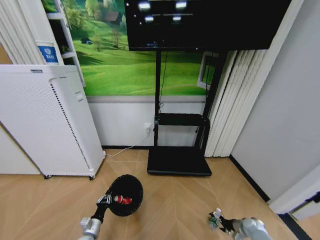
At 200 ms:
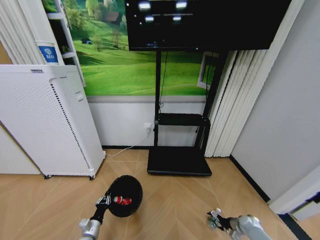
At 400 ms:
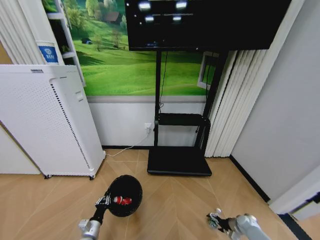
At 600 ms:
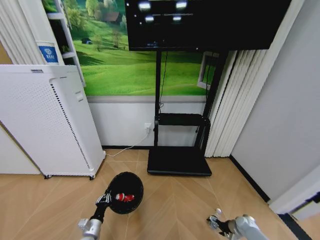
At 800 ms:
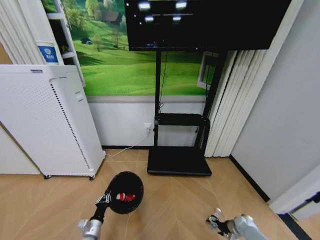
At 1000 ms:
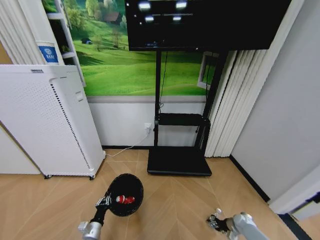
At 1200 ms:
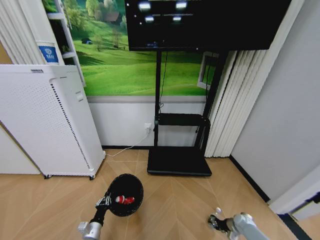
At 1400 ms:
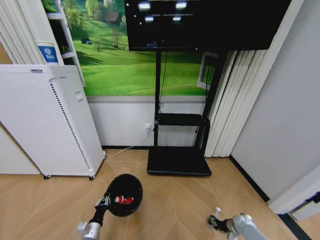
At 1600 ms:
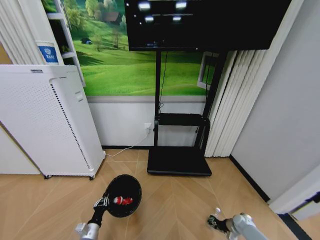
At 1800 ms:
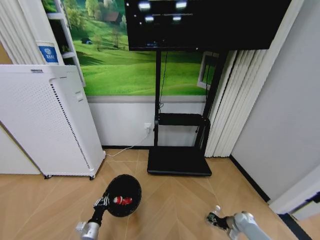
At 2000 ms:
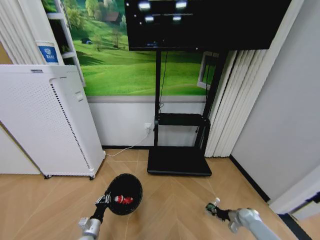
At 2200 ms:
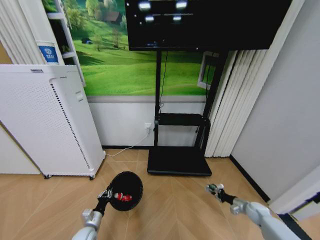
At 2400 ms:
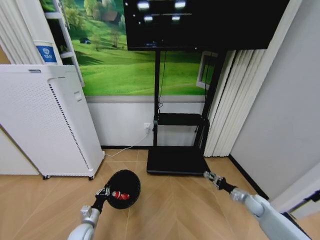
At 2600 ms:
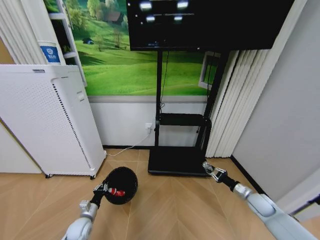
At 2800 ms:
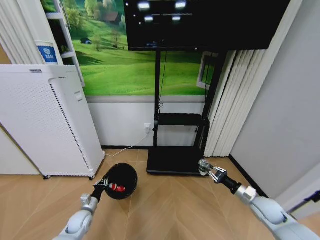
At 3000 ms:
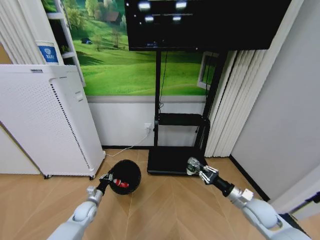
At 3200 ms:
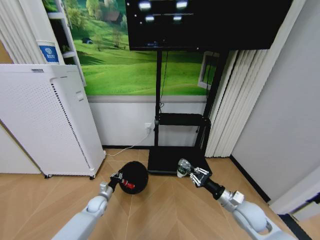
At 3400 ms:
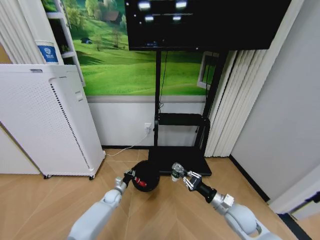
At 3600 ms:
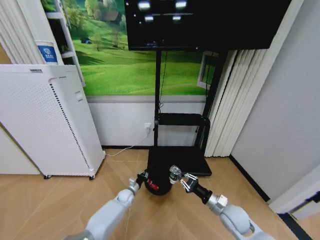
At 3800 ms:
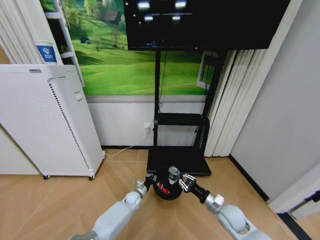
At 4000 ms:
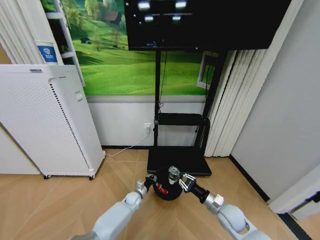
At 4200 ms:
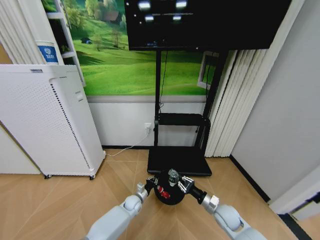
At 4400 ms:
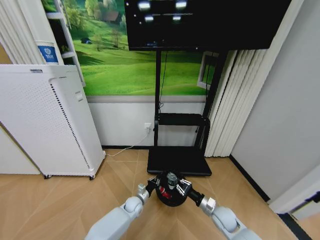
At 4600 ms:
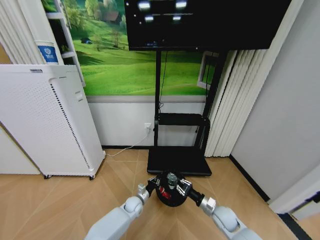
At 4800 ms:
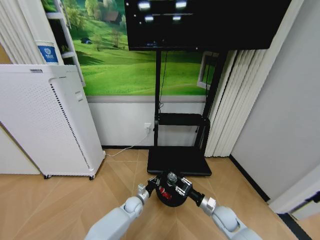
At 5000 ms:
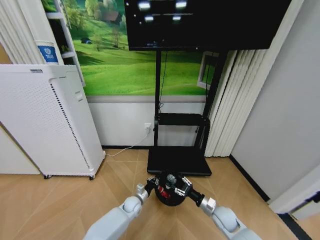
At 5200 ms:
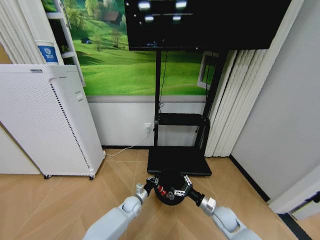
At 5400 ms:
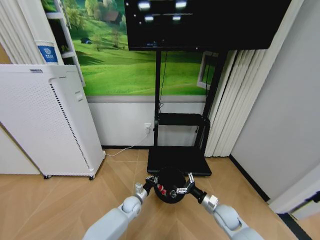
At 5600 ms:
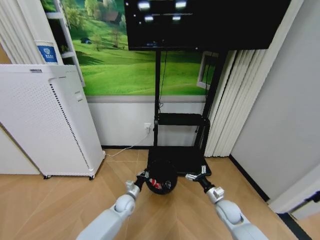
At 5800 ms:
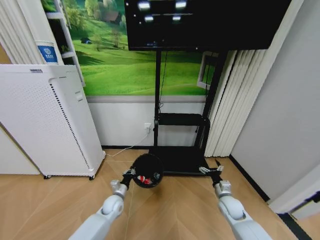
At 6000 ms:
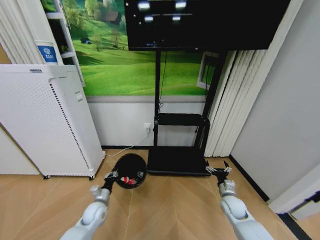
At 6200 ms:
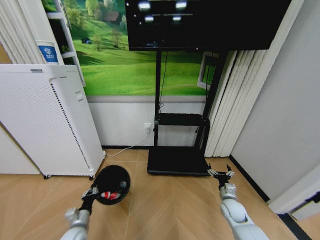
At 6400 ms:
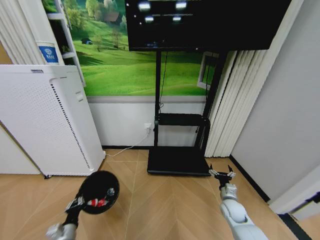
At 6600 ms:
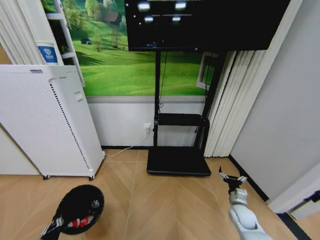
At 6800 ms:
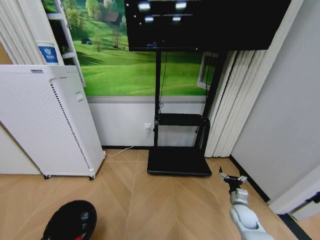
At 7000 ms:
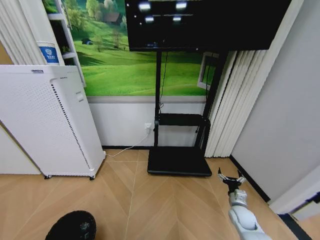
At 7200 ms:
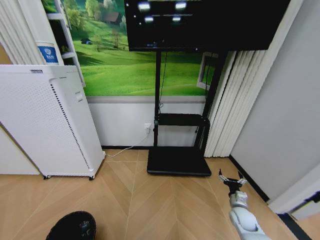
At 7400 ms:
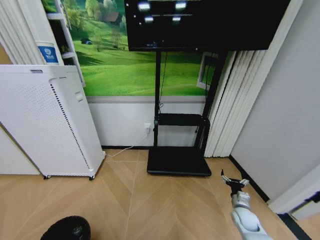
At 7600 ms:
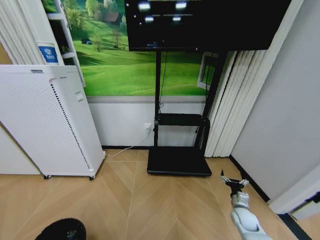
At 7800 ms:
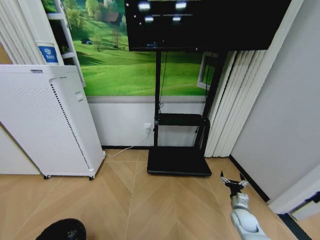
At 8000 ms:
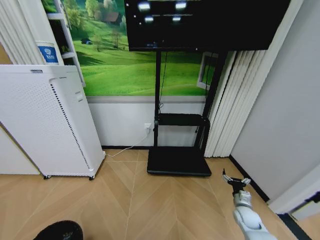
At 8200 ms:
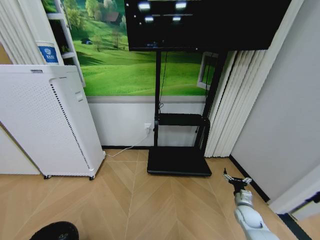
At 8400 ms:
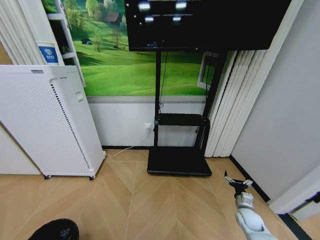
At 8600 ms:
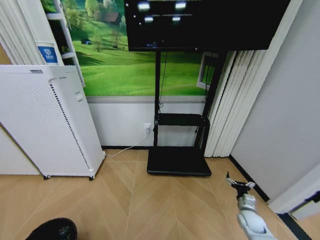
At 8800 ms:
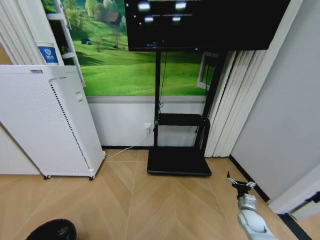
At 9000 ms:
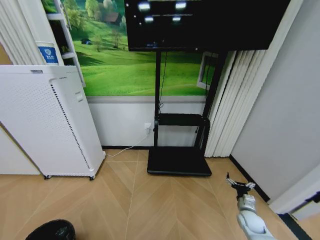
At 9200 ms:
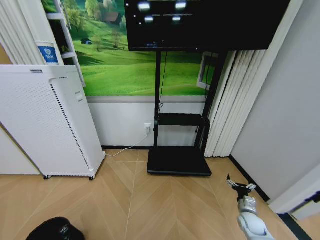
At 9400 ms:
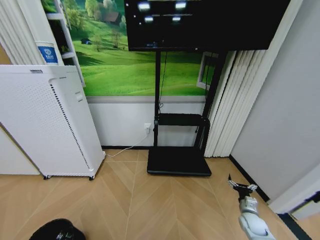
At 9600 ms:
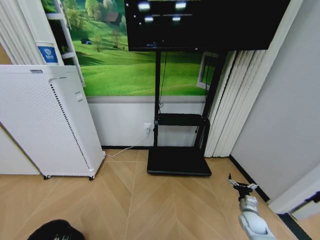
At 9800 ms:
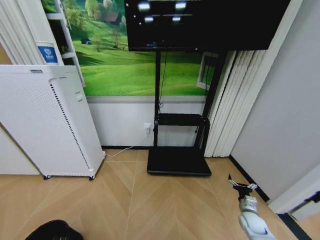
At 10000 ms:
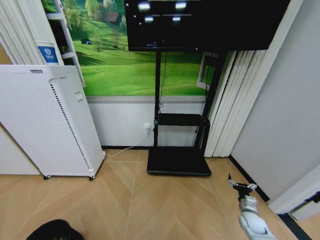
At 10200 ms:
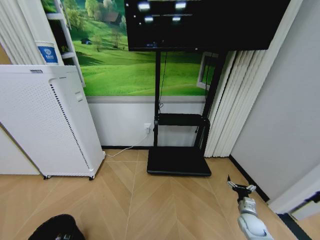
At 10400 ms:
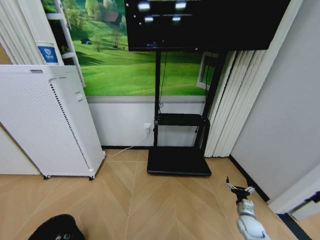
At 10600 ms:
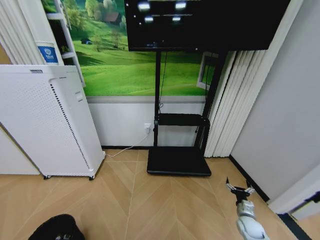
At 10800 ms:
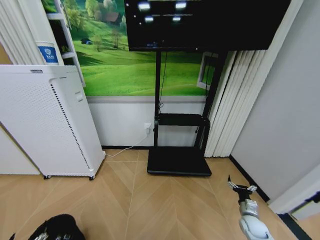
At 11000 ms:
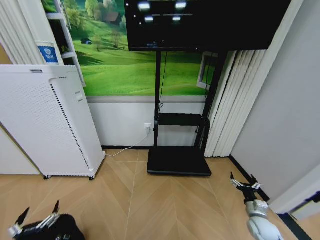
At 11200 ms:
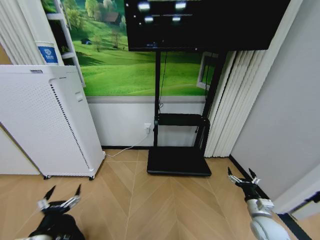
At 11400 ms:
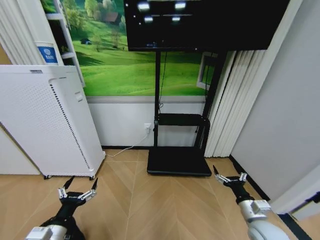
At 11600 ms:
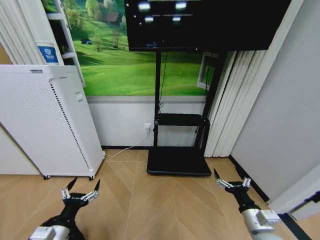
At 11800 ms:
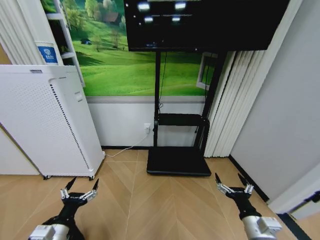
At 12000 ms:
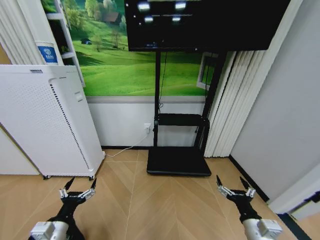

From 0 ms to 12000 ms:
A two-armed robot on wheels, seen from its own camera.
Task of the whole recording: Pick up the trash bin and place the garbage on the floor into it.
From 0 ms to 1600 ms: The right gripper closes up.
From 1600 ms to 3000 ms: The left gripper goes roughly 15 cm forward, while the right gripper heads upward and to the left, covering some 30 cm.
From 3000 ms to 4400 ms: The right gripper shifts some 15 cm downward and to the left. Meanwhile the left gripper goes roughly 25 cm to the right.
From 4400 ms to 6000 ms: The right gripper shifts approximately 5 cm to the right, and opens up, while the left gripper travels to the left and upward by roughly 20 cm.
From 6000 ms to 7600 ms: The right gripper is displaced to the right by about 5 cm; the left gripper heads backward, covering some 30 cm.
From 7600 ms to 9000 ms: The left gripper shifts by about 5 cm.
From 9000 ms to 10400 ms: The left gripper opens up.
From 10400 ms to 12000 ms: The left gripper shifts roughly 30 cm upward, forward and to the right, while the right gripper moves upward, to the left and backward, some 30 cm.

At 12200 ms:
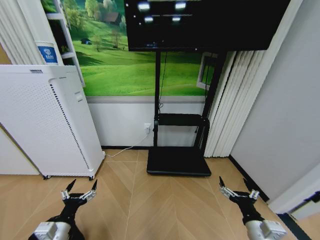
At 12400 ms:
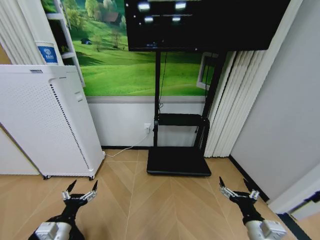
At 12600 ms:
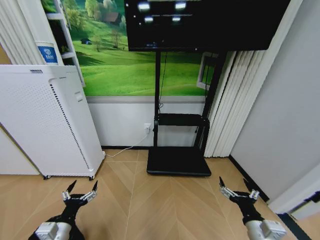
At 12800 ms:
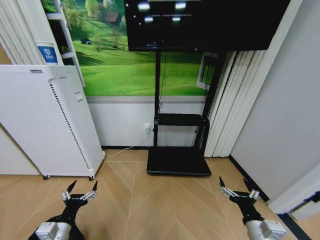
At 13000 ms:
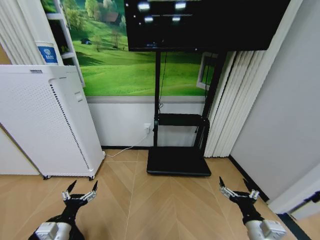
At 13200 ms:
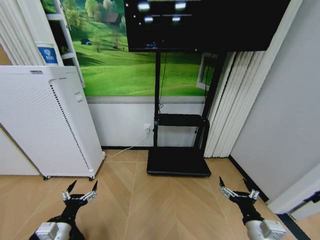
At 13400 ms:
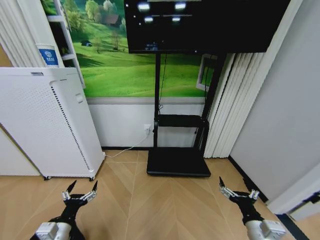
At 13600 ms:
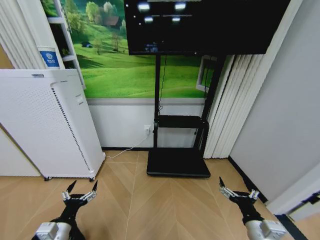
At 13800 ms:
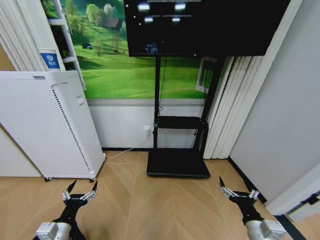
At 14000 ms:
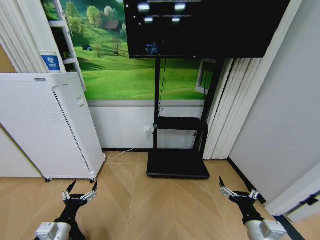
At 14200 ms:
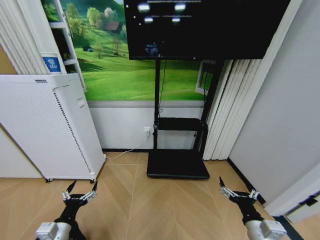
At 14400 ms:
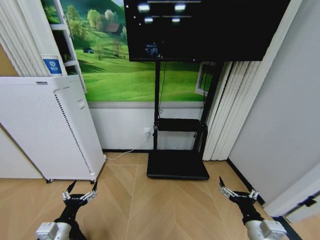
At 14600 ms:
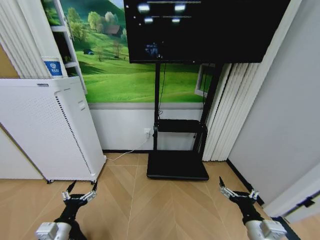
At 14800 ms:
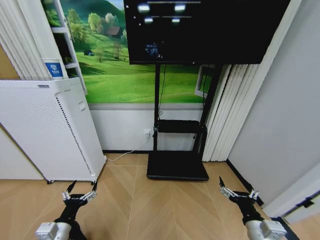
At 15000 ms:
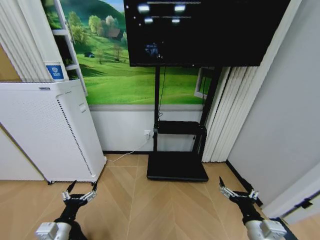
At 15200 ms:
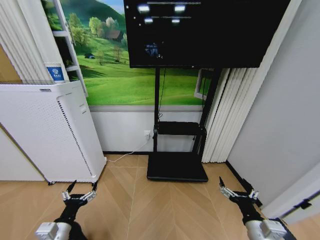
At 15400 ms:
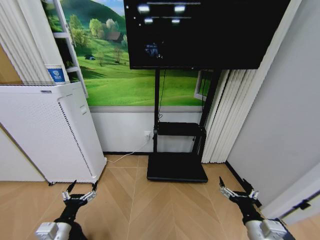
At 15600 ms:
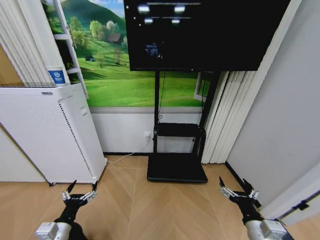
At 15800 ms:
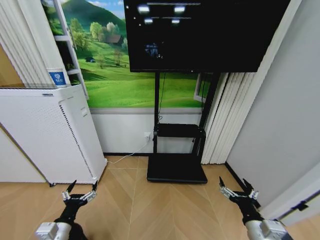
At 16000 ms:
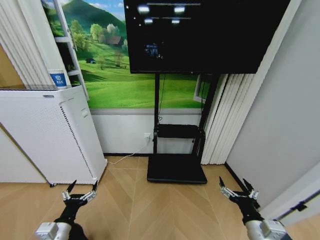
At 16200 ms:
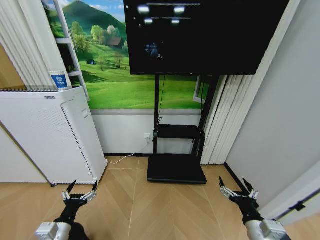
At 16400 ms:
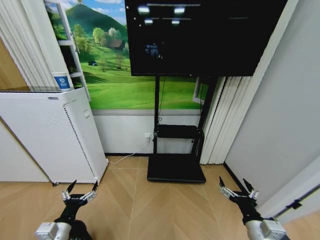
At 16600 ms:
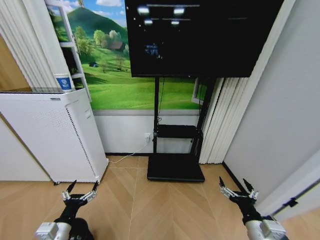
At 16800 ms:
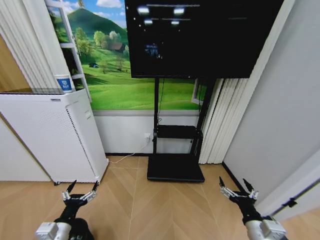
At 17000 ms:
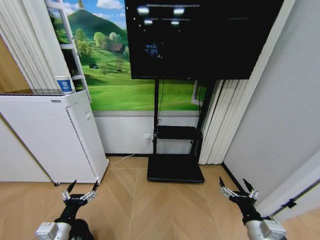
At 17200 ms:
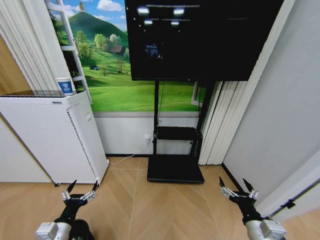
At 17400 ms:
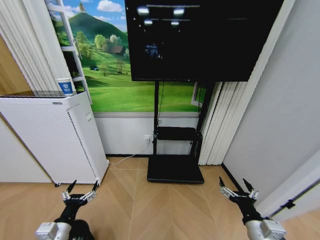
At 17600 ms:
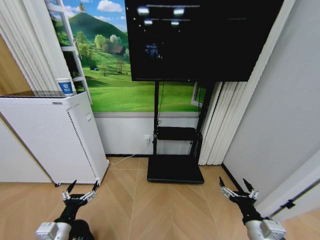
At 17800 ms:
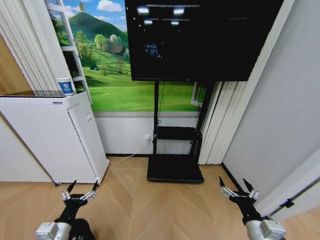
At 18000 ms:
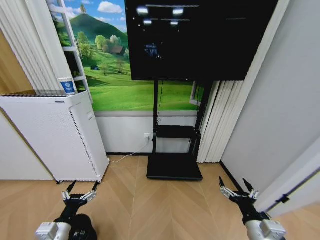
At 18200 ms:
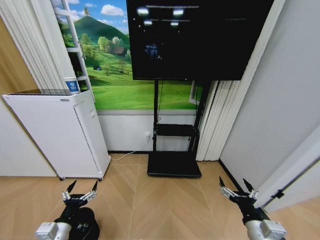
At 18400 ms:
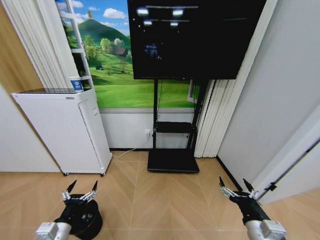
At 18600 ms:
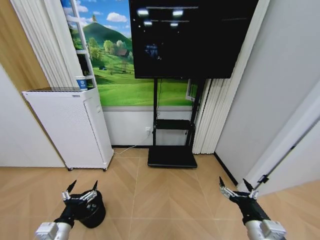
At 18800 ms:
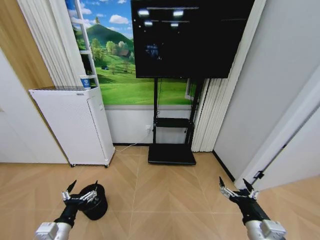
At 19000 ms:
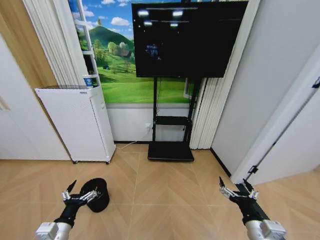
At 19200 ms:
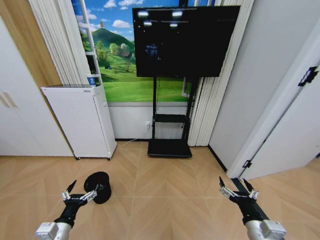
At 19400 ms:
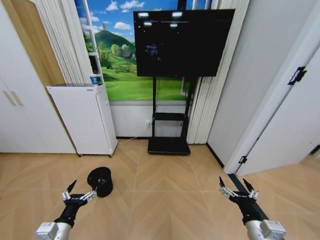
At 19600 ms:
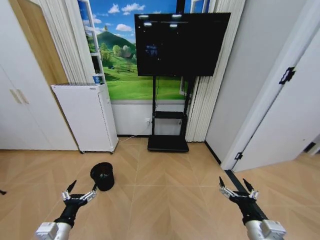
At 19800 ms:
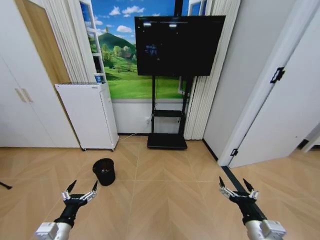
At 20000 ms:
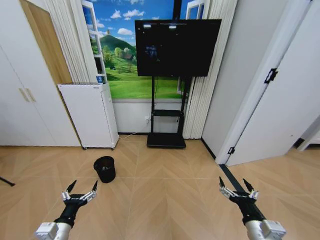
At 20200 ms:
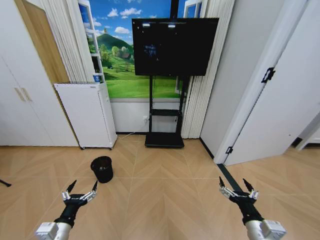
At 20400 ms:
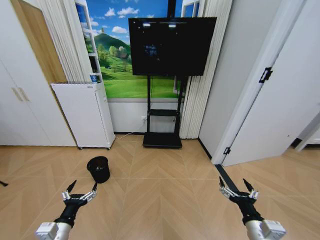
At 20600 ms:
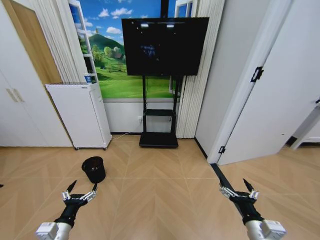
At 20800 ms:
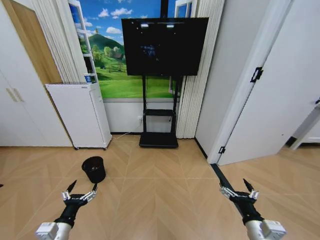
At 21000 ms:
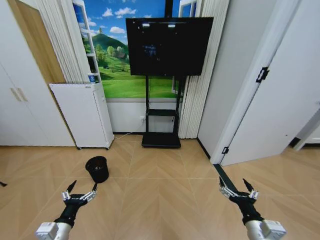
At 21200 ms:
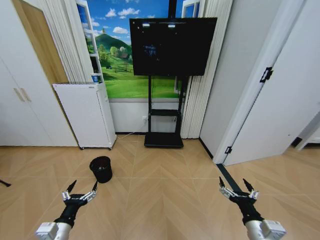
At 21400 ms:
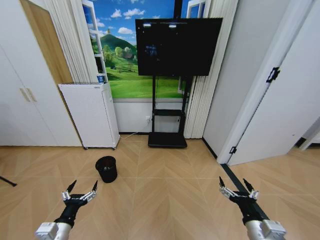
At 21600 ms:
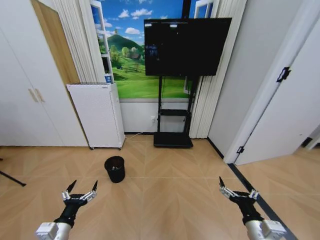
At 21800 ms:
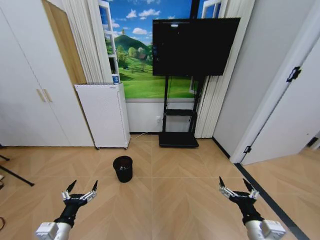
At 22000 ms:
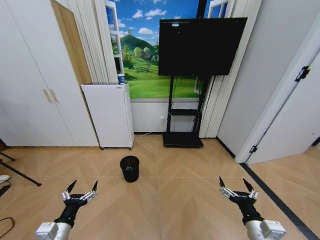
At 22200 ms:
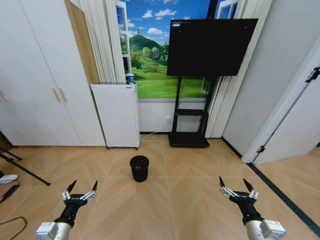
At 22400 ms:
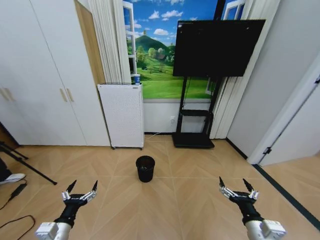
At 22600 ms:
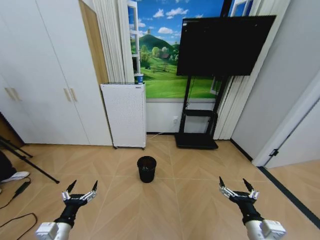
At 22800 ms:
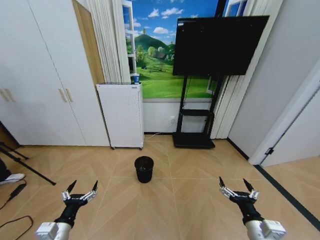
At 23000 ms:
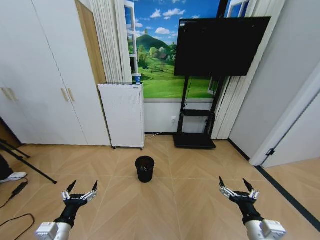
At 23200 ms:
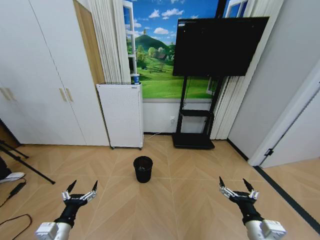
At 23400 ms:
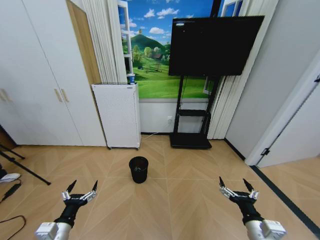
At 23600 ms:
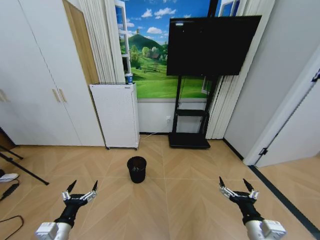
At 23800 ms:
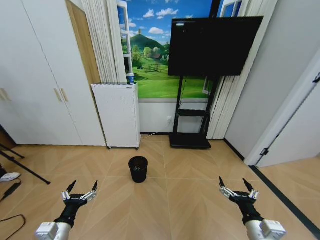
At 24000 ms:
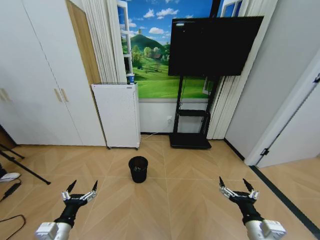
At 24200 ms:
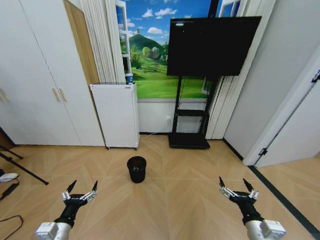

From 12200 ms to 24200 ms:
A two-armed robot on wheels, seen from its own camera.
Task of the whole recording: Pick up the trash bin and place the garbage on the floor into it.
From 12200 ms to 15200 ms: Both grippers stay put.
From 19800 ms to 21200 ms: Both grippers stay about where they are.
